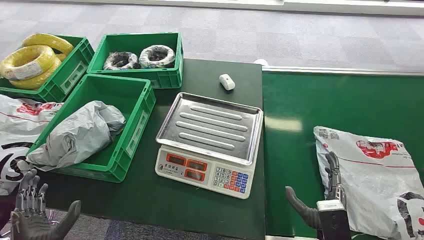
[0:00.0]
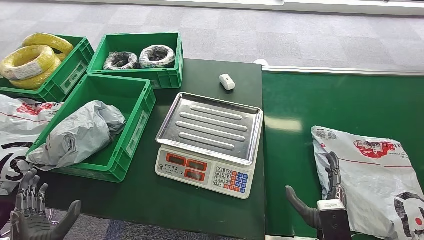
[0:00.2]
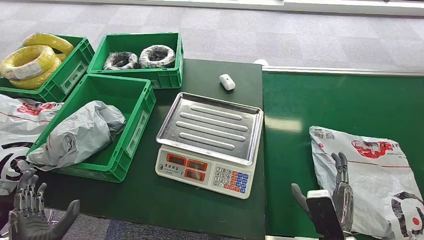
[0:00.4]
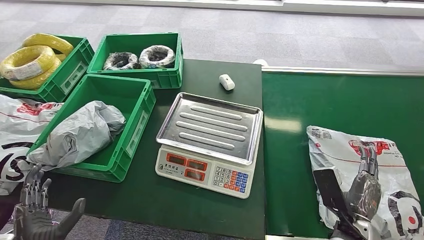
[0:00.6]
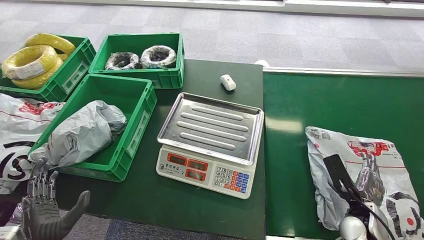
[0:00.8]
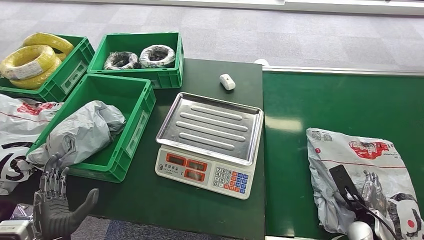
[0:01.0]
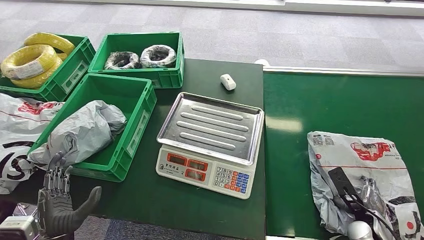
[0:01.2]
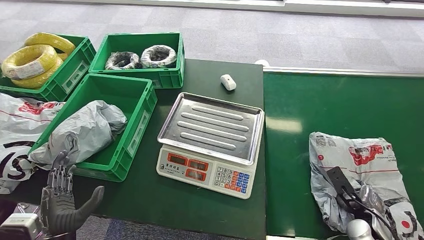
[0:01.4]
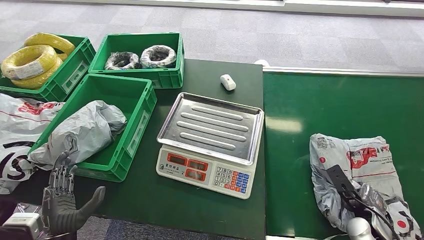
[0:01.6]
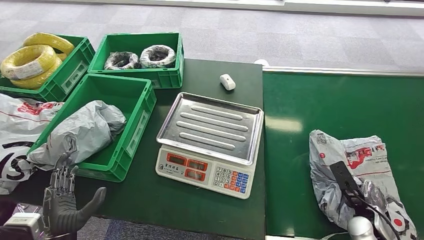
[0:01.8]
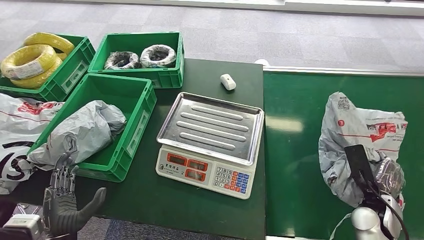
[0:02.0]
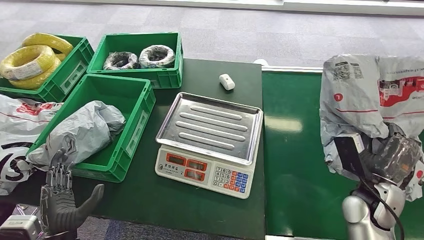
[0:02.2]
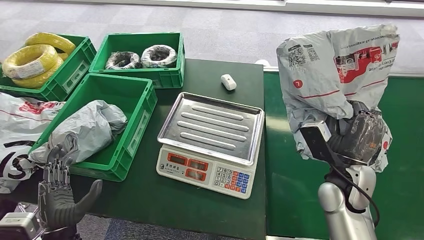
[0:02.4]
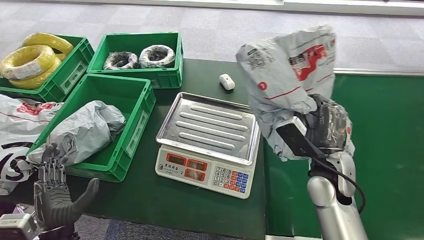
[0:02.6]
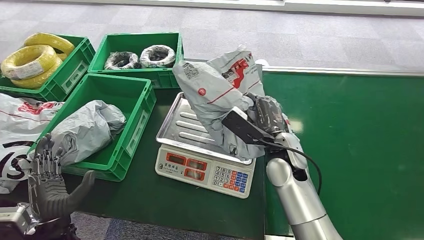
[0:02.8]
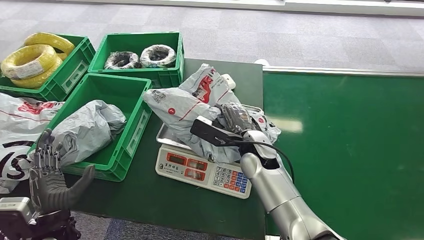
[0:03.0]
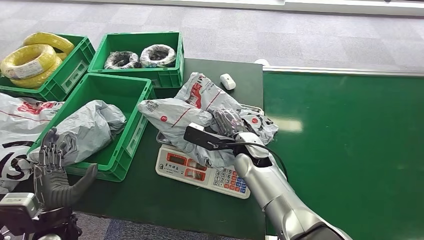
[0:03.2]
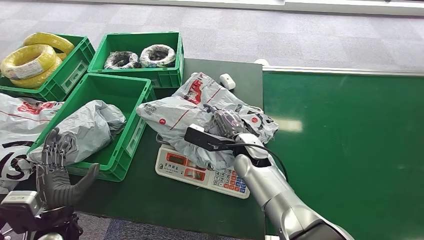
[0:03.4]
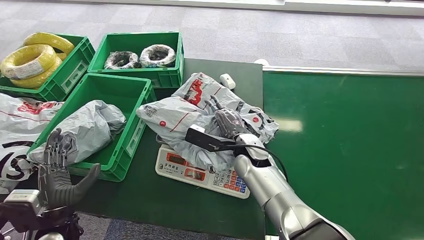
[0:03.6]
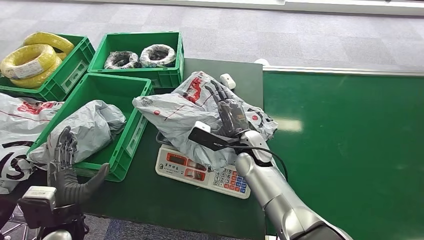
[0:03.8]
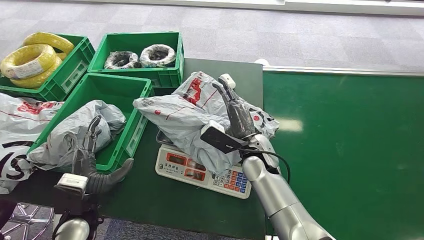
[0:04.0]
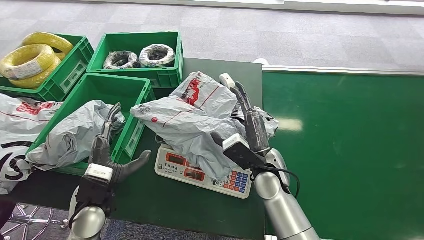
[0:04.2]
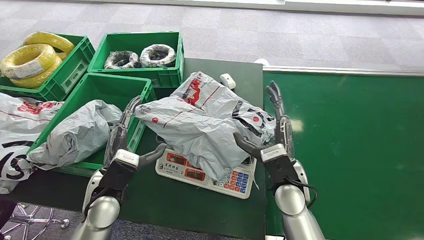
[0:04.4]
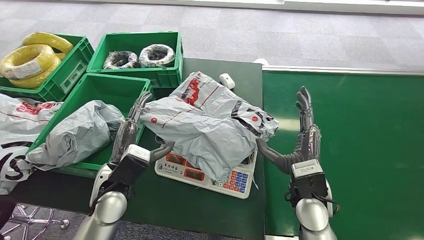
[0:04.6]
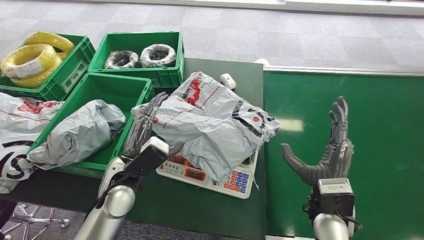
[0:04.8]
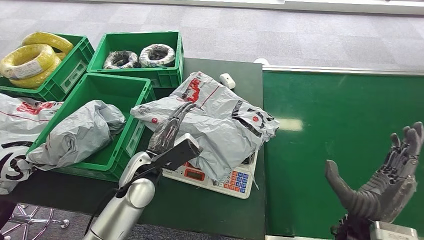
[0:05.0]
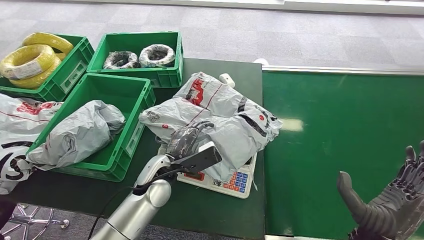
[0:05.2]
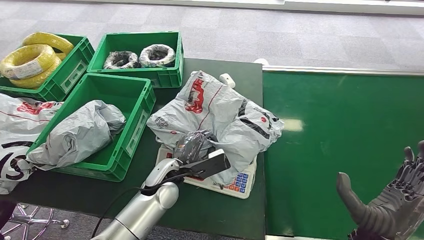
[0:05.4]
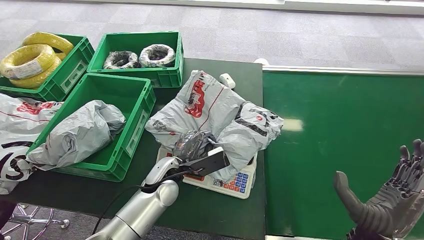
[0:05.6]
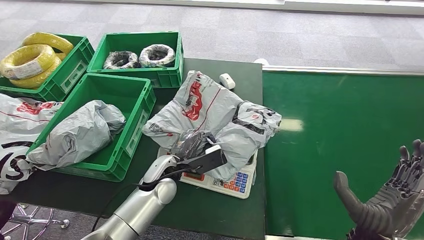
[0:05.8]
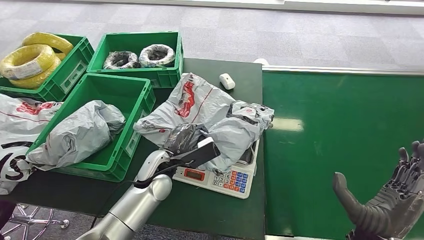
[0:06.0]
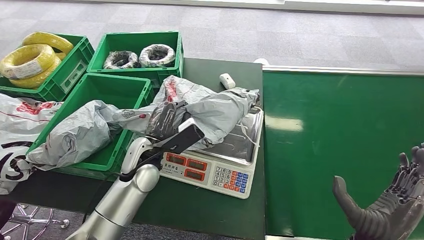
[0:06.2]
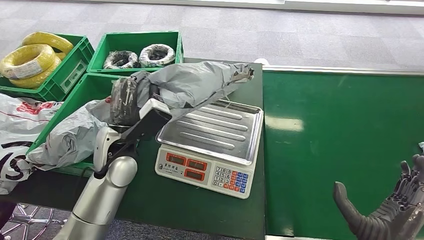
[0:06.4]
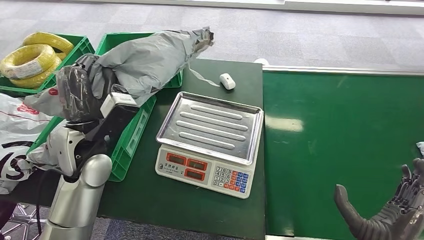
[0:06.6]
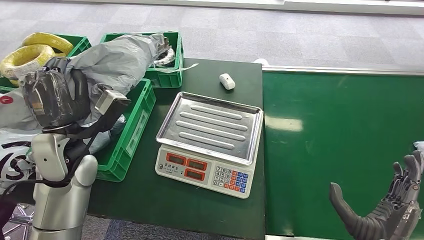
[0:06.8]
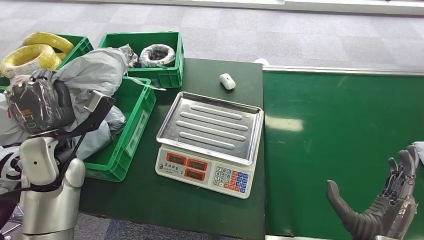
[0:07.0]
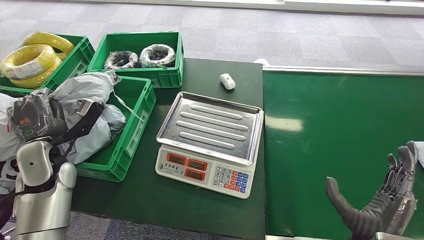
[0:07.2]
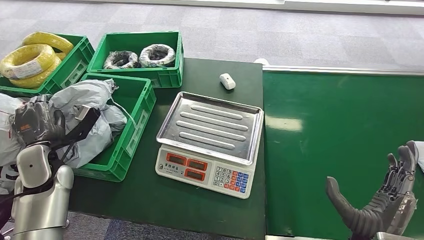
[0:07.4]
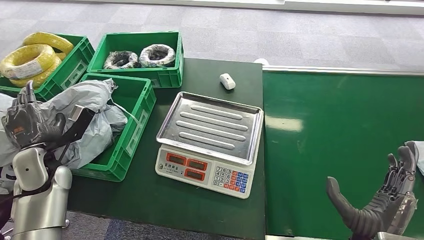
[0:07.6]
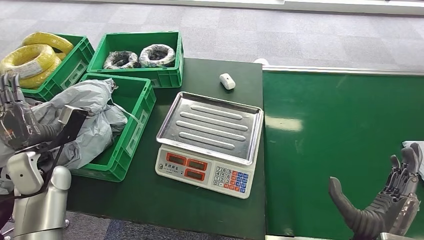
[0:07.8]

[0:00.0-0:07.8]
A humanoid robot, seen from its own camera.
Step, 0:00.0 to 0:02.2: Pick up the package from the conveyor belt.
Step, 0:02.6 to 0:03.6: Place the package onto the inbound machine.
Step, 0:03.8 to 0:06.6: Pick up the package from the inbound machine.
Step, 0:07.0 to 0:07.8: Place the package into the parcel locker.
0:04.6 to 0:06.2: The left hand is displaced forward by approximately 5 cm; the right hand is displaced backward and to the right by some 15 cm.

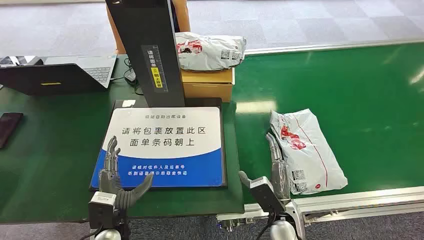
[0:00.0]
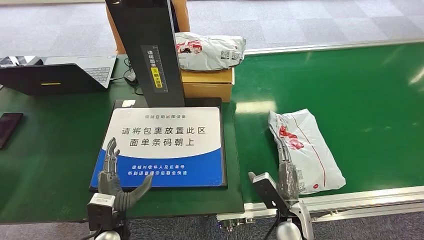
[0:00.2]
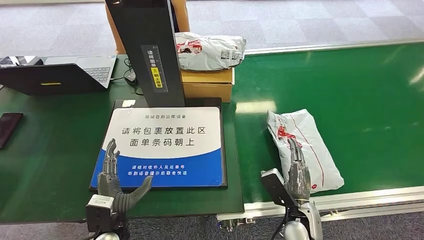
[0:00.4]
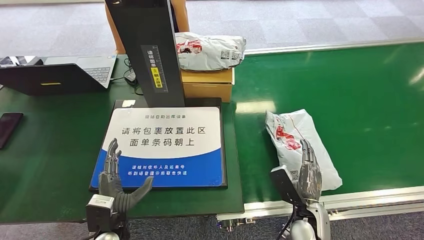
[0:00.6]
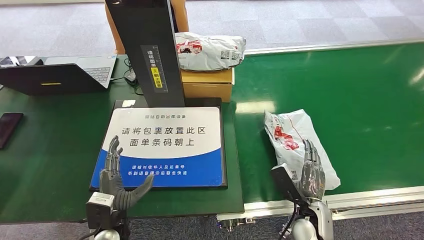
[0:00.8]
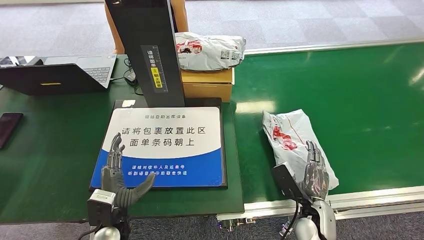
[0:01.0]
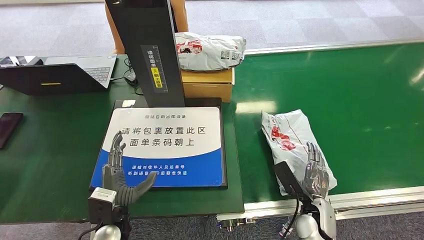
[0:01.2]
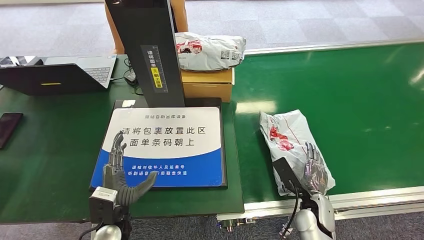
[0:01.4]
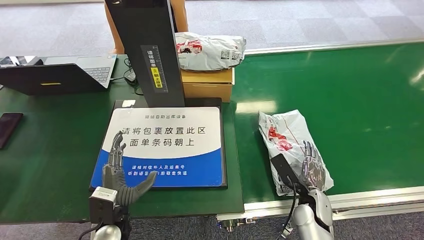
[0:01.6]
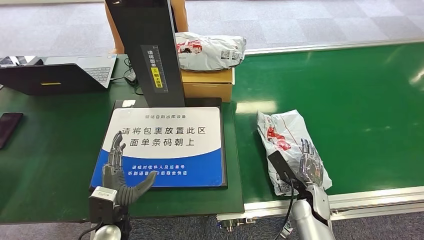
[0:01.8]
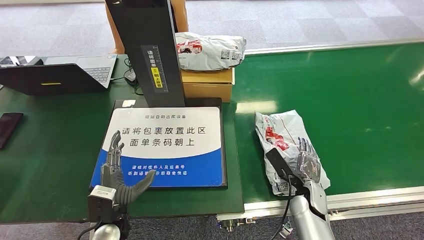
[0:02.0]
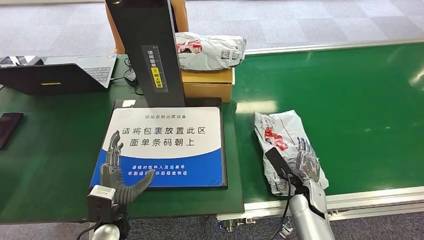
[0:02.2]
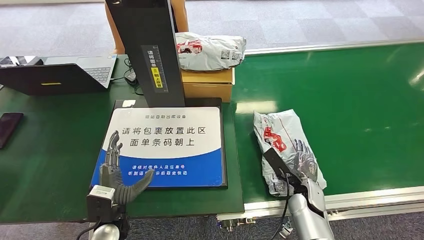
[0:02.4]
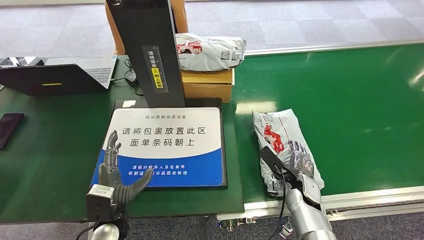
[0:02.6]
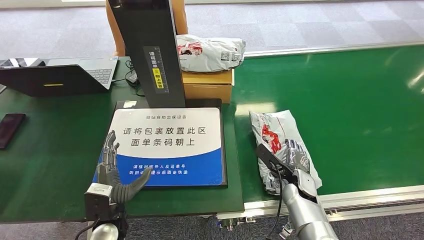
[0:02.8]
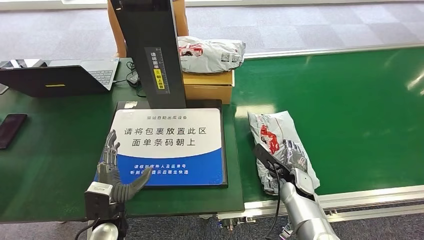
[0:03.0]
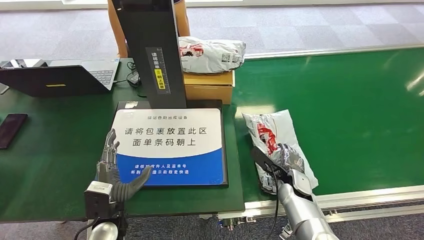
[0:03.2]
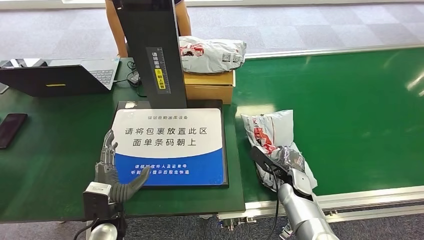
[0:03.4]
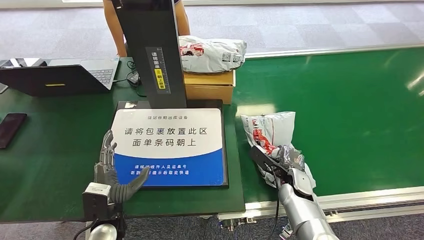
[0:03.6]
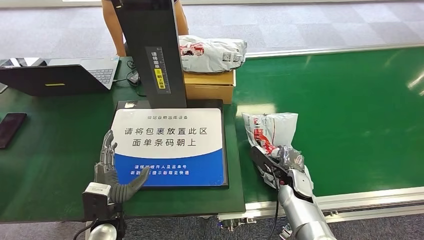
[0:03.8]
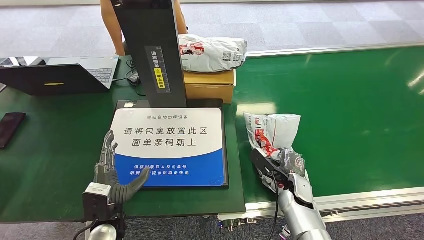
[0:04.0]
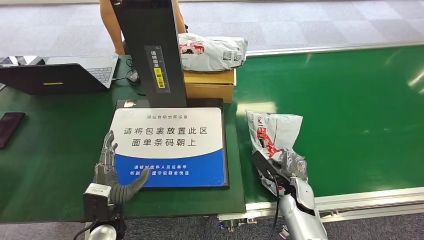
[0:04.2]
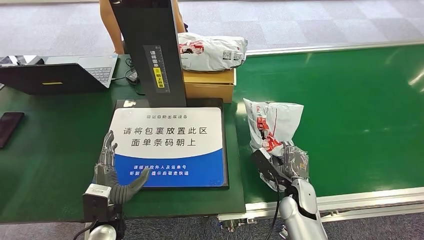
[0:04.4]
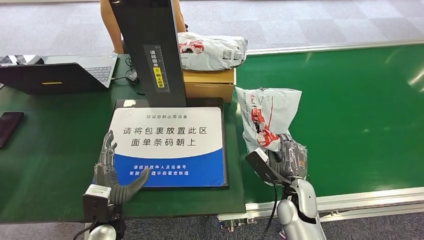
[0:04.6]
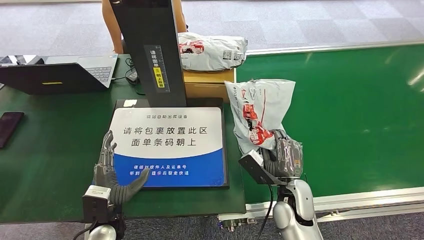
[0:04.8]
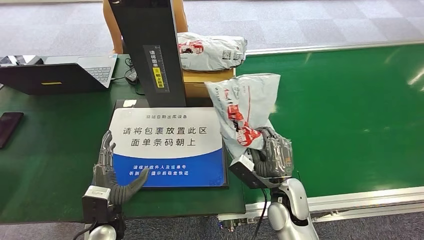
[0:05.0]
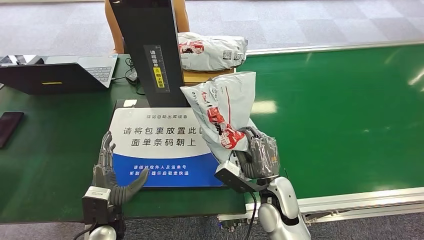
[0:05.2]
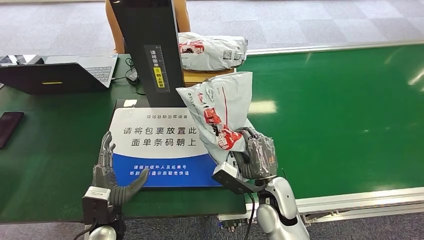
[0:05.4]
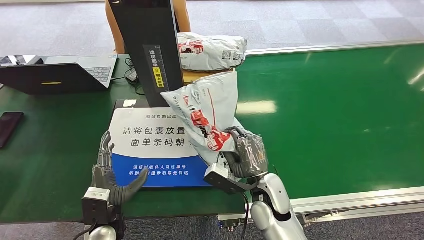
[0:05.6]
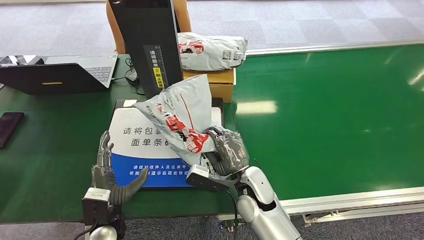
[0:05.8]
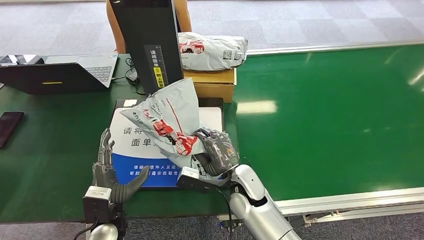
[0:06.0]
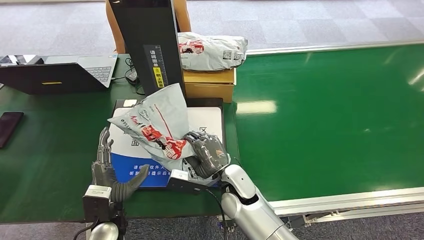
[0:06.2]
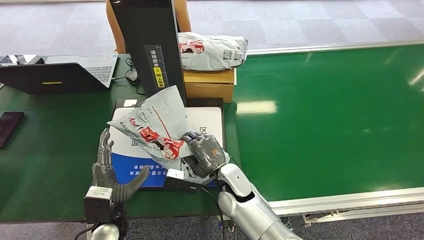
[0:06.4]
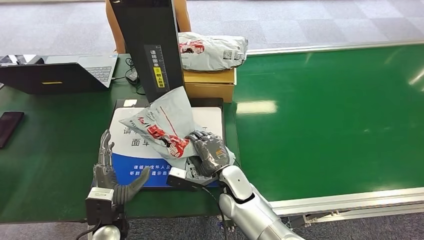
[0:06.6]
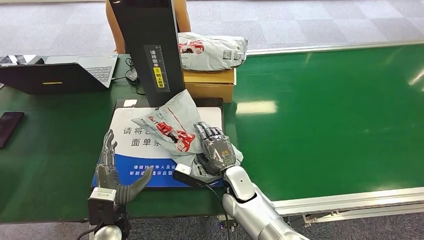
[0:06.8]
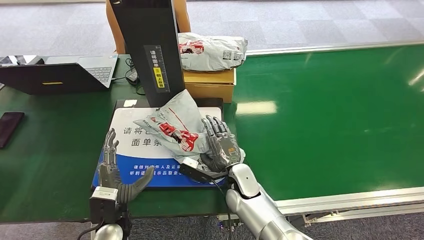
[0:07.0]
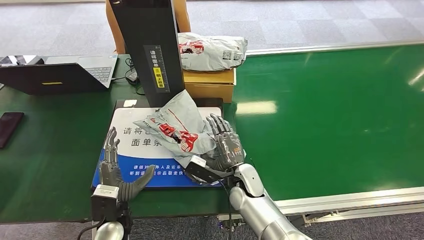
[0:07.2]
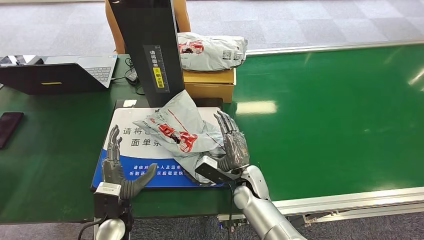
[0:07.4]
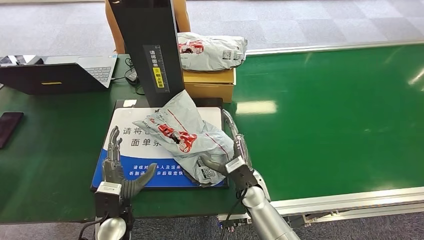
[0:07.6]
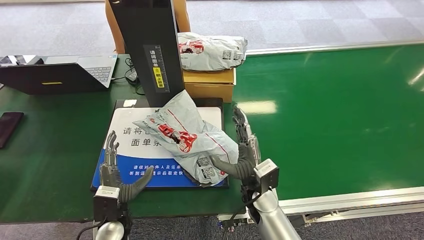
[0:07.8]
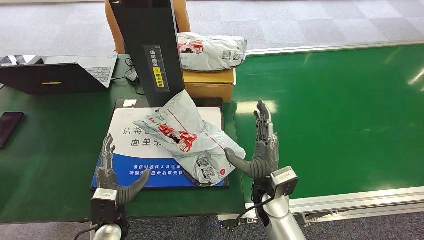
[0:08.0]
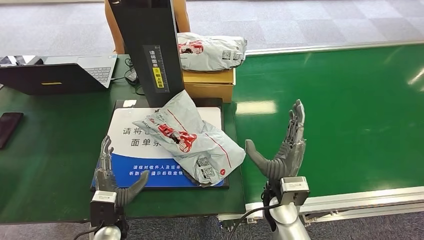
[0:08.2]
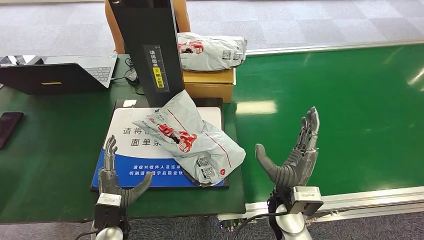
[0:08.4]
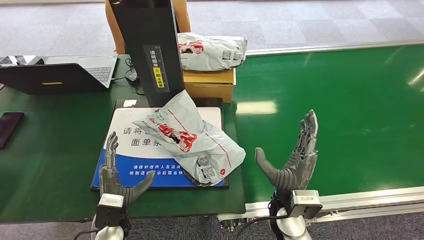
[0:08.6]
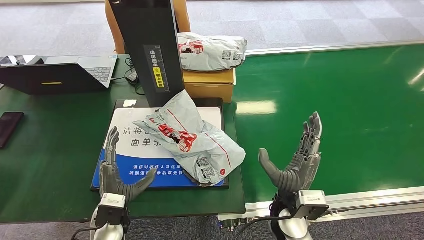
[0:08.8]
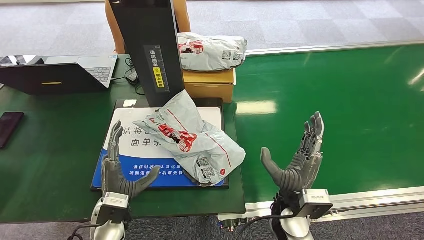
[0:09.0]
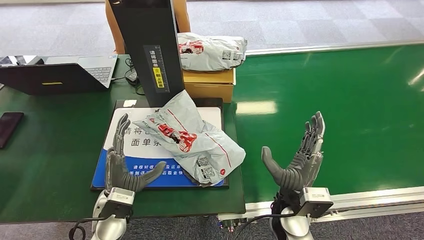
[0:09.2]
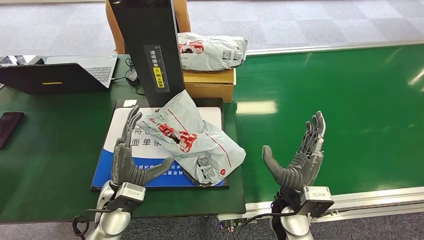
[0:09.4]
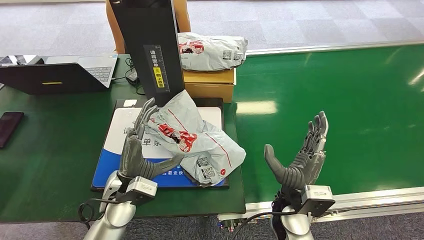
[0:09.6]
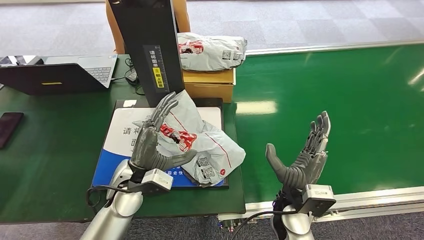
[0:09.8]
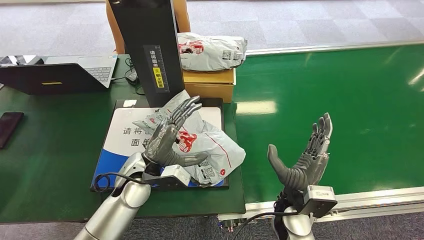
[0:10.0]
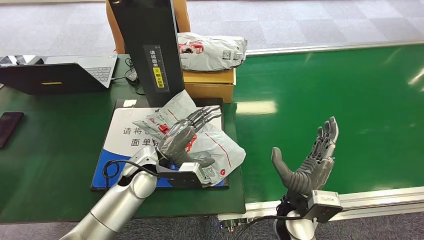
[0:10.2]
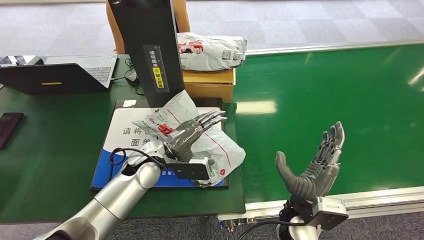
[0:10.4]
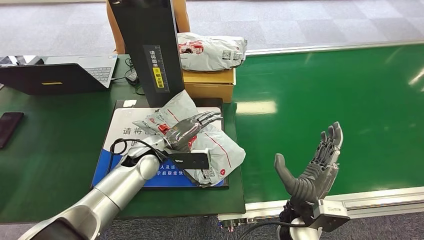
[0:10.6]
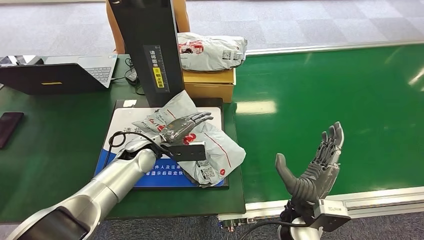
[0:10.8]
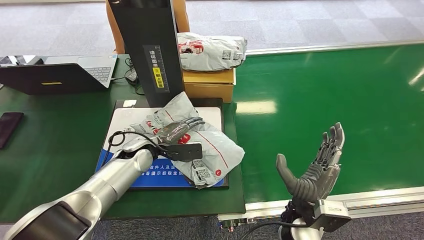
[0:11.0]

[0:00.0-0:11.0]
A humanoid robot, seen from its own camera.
Step, 0:00.0 to 0:05.0: Pick up the package from the conveyor belt.
Step, 0:05.4 to 0:08.8: Place the package onto the inbound machine.
0:04.8 to 0:06.2: The right hand heads to the left, covering approximately 15 cm.
0:06.2 to 0:07.8: The right hand travels to the right by approximately 5 cm.
0:07.8 to 0:09.4: The right hand travels to the right by about 5 cm, while the left hand heads upward, covering approximately 5 cm.
0:09.4 to 0:11.0: The left hand travels forward by roughly 15 cm.
